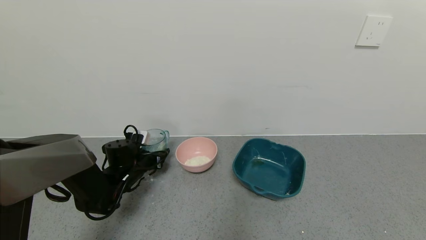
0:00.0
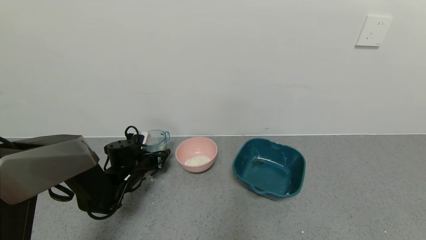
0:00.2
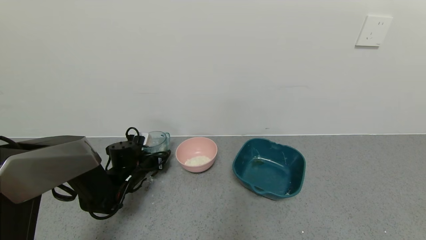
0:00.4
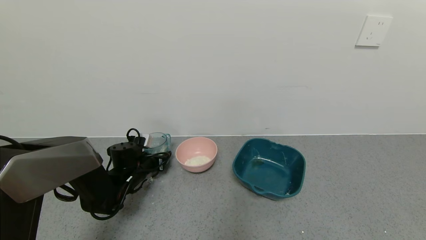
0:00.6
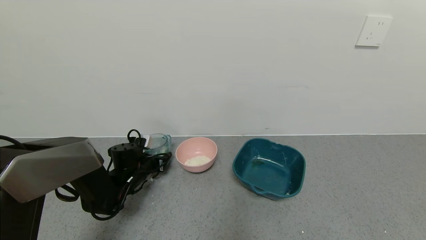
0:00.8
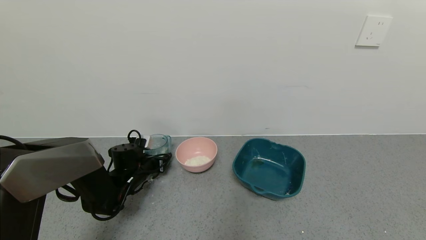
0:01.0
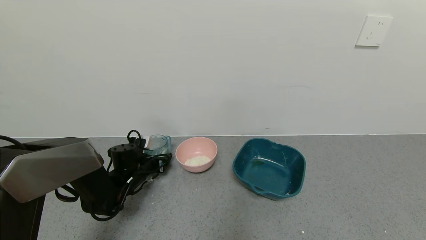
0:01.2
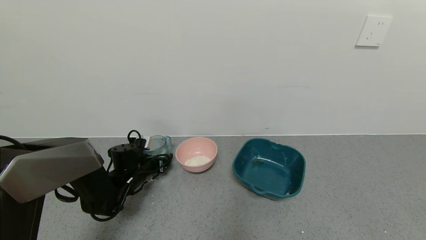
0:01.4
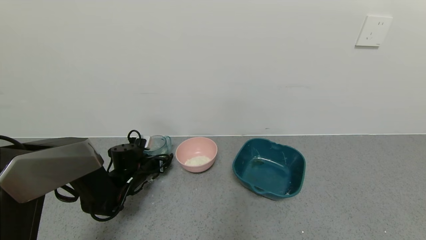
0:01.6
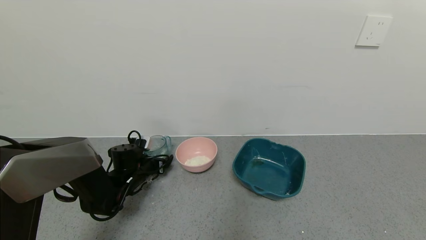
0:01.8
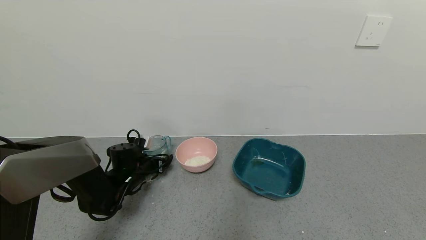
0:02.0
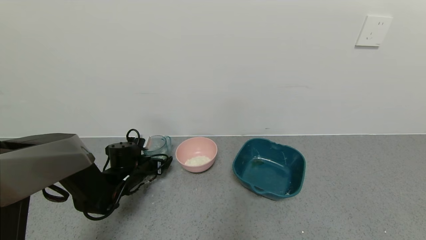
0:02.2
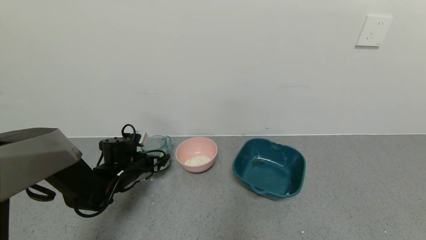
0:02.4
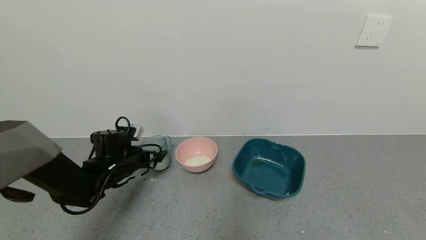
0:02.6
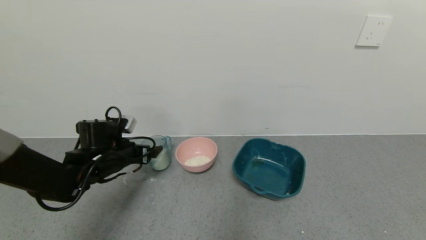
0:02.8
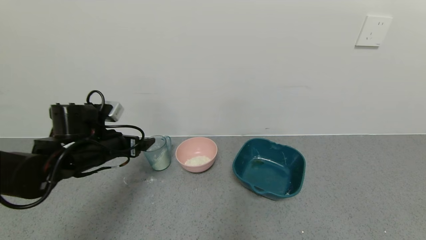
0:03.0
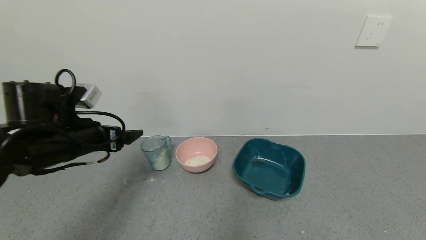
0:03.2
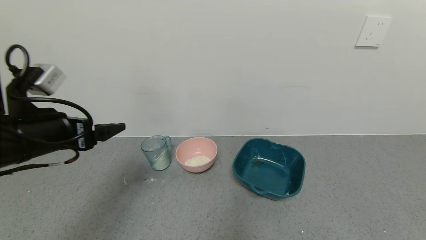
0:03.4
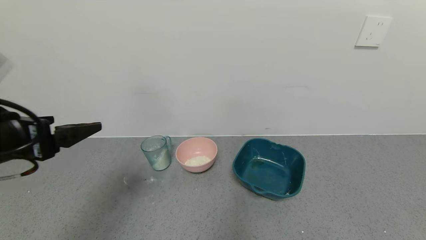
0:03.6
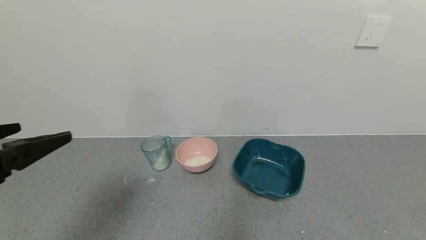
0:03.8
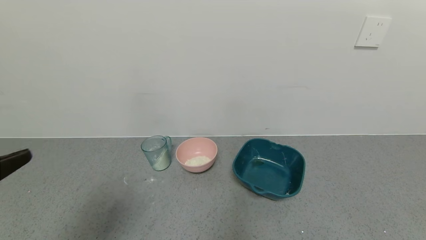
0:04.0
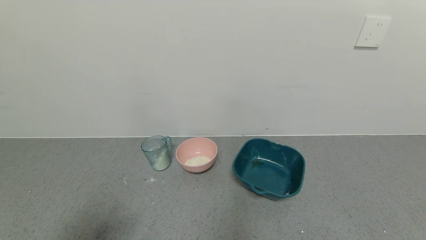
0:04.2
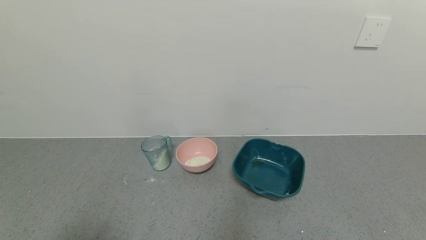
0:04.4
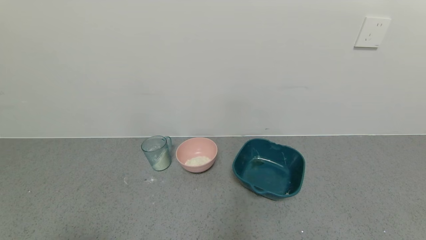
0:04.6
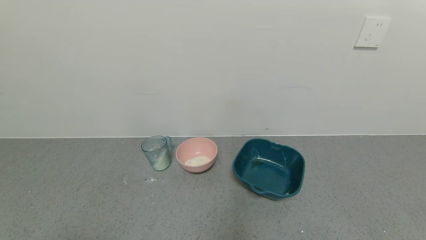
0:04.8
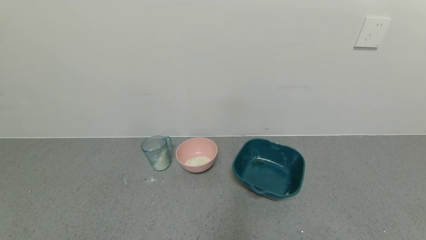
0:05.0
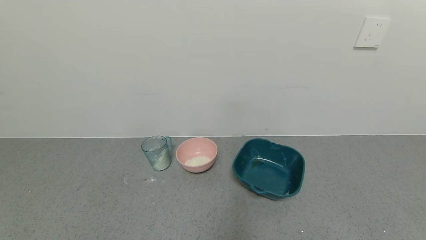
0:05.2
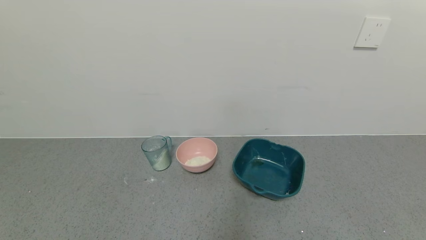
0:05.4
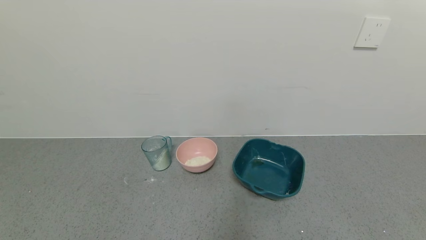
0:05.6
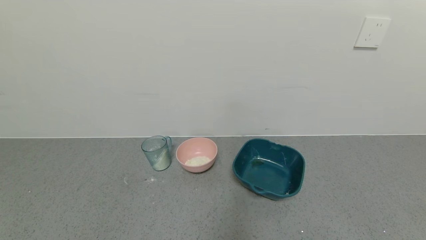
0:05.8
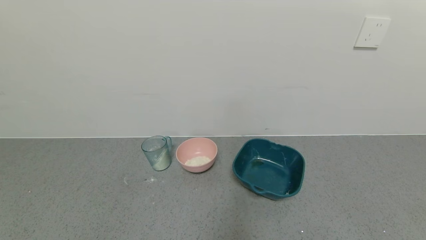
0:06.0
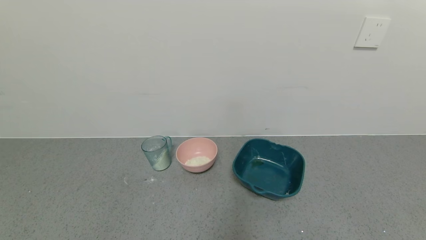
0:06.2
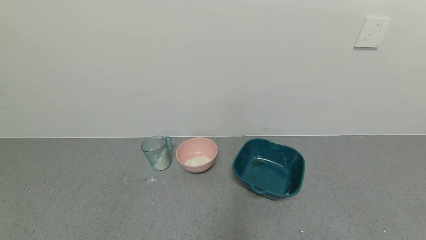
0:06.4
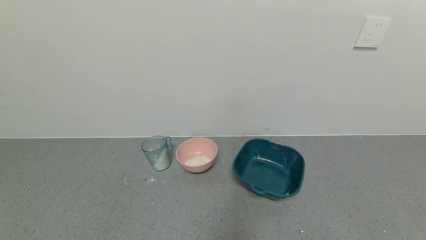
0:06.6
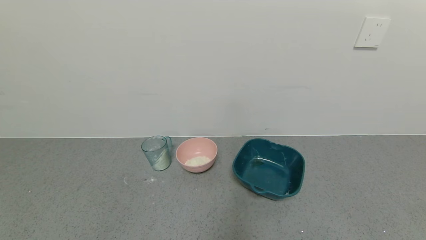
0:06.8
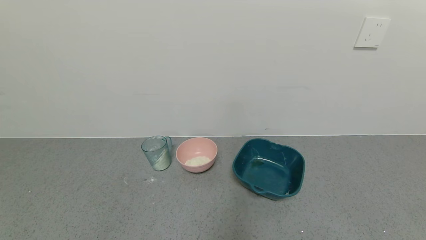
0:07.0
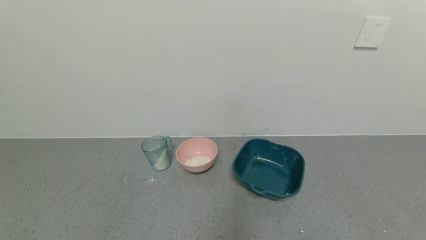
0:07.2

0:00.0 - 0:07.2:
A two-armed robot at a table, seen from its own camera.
Task of the whole recording: use a gripper to pick up the cup and pour the powder into a bowl or tray.
Step, 0:00.0 - 0:02.6: Place the glass cup down with the left gripper.
0:00.0 - 0:01.4: The left gripper opens its fingers.
0:01.4 - 0:02.8: The left gripper shifts some 10 cm upward and backward, and opens.
0:02.8 - 0:04.4: The left gripper moves backward and upward, approximately 40 cm.

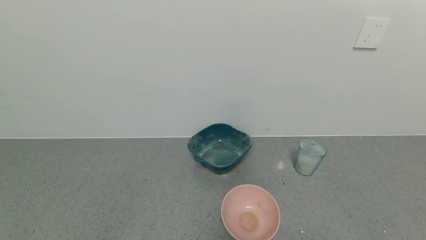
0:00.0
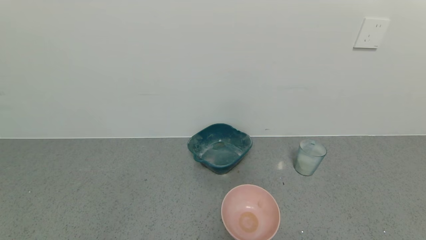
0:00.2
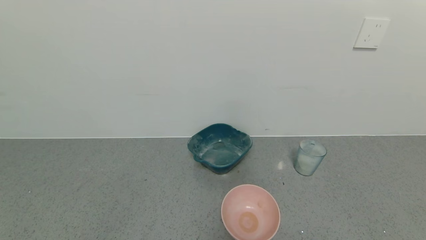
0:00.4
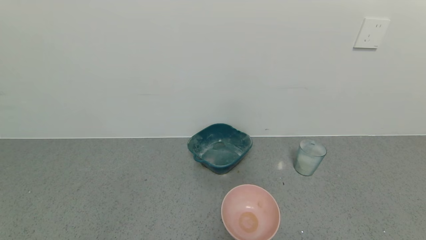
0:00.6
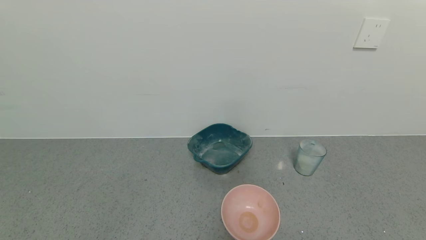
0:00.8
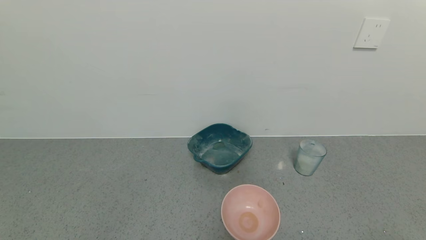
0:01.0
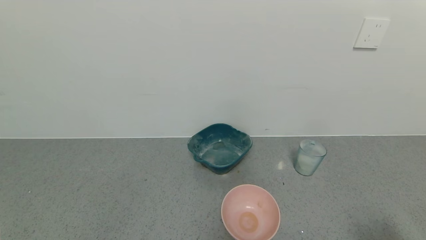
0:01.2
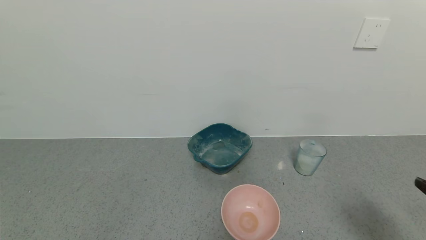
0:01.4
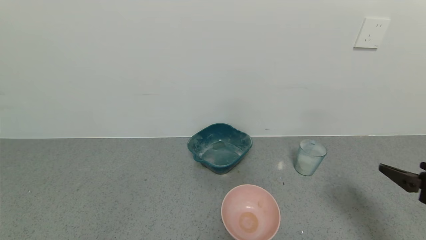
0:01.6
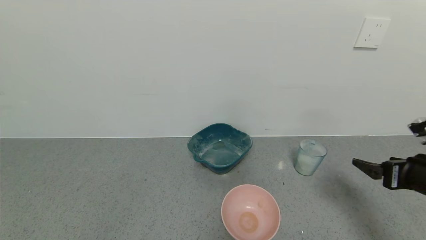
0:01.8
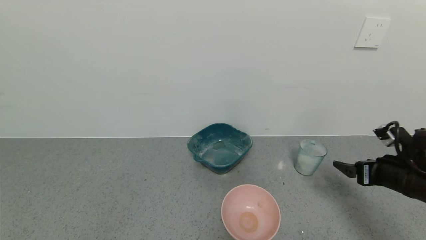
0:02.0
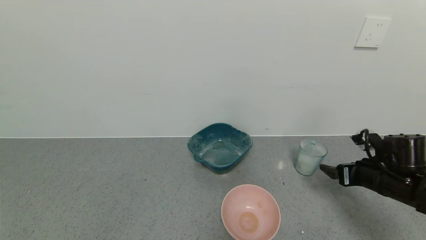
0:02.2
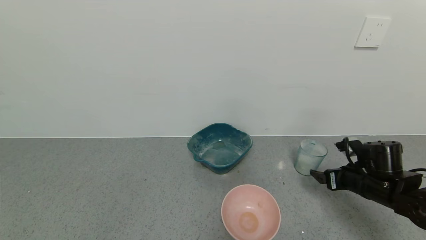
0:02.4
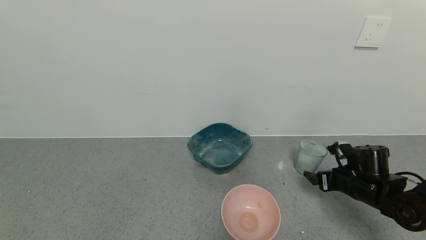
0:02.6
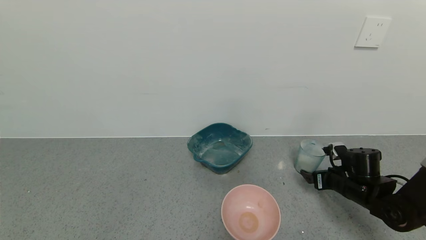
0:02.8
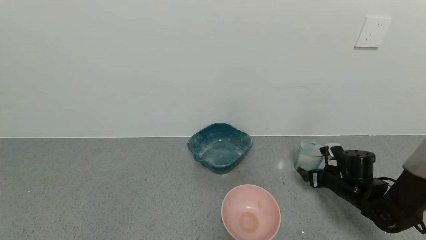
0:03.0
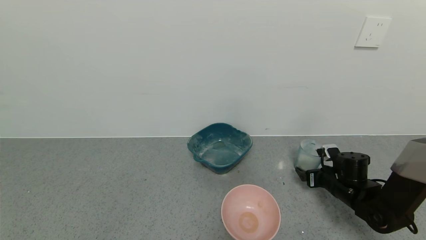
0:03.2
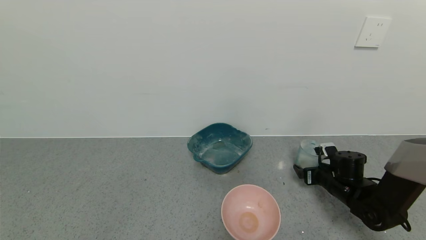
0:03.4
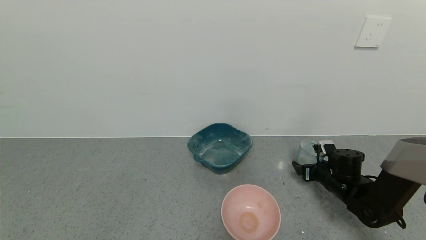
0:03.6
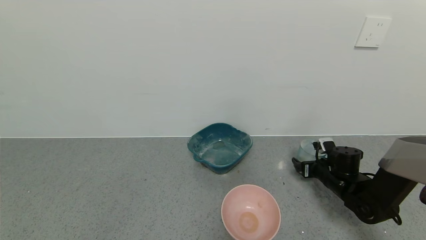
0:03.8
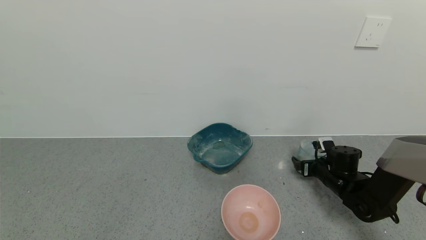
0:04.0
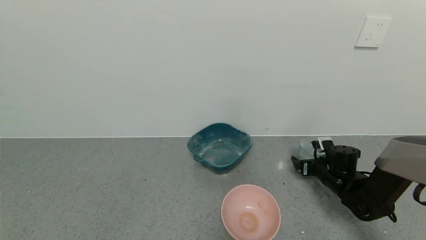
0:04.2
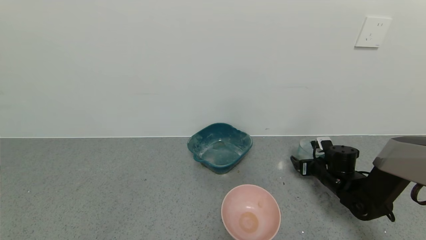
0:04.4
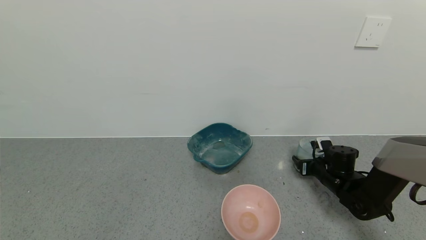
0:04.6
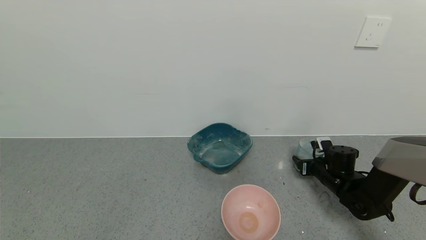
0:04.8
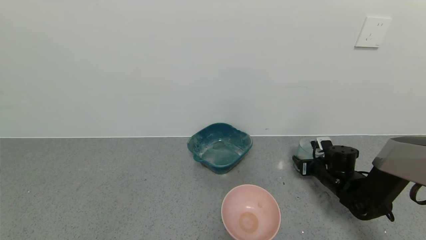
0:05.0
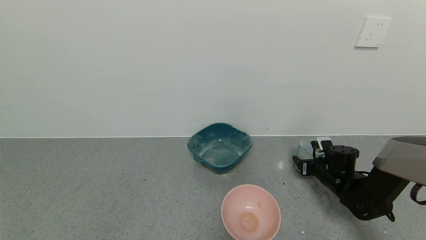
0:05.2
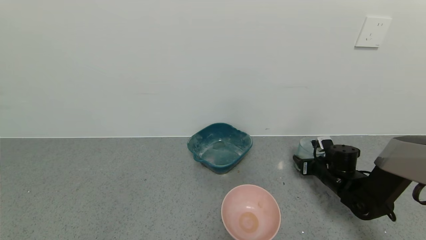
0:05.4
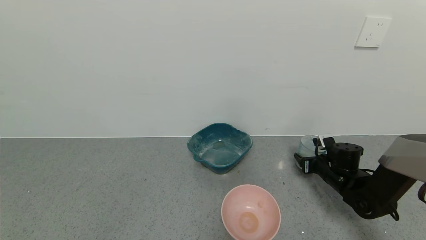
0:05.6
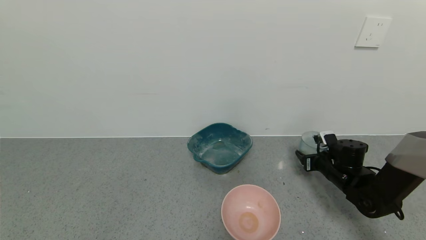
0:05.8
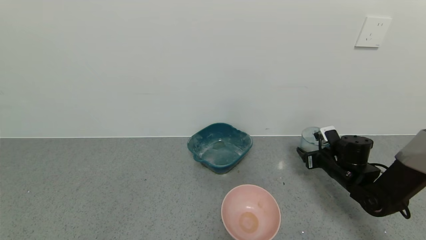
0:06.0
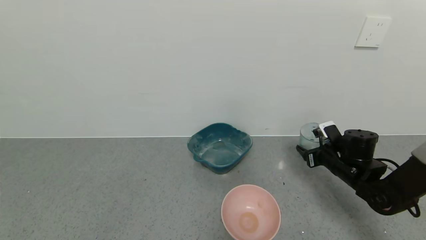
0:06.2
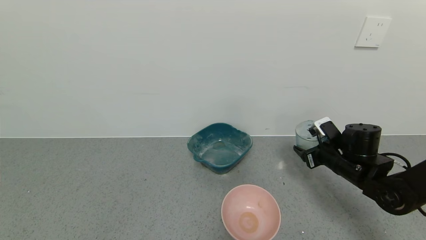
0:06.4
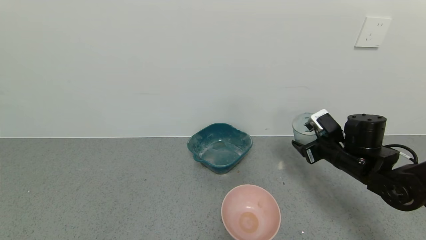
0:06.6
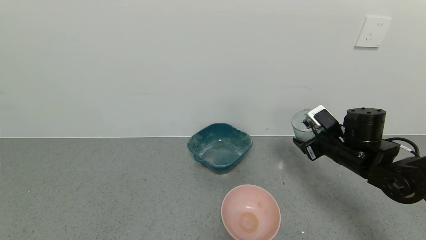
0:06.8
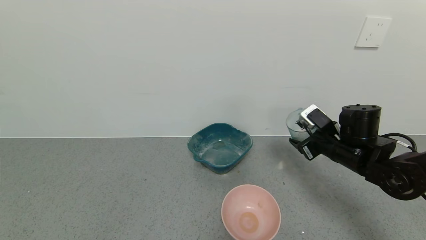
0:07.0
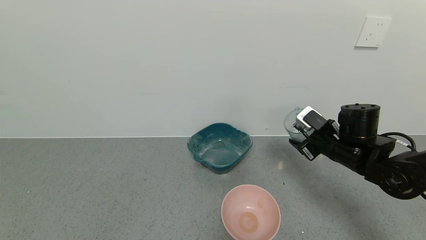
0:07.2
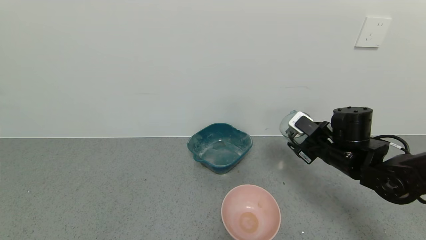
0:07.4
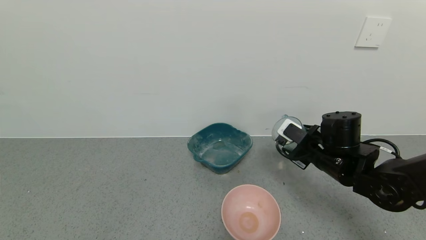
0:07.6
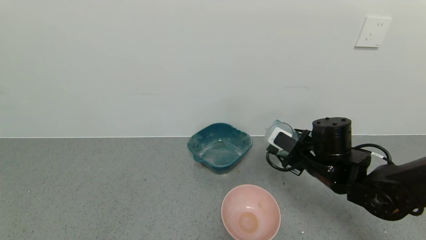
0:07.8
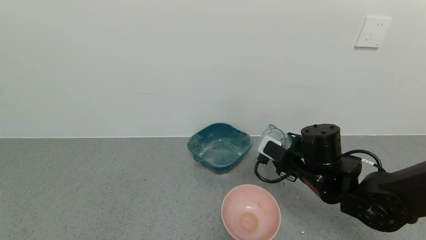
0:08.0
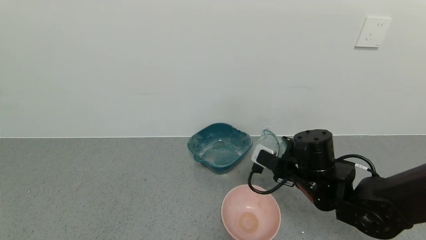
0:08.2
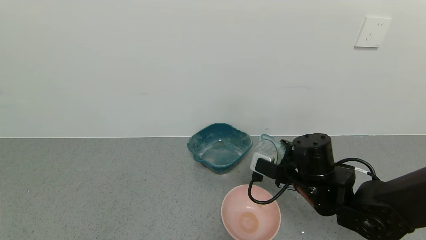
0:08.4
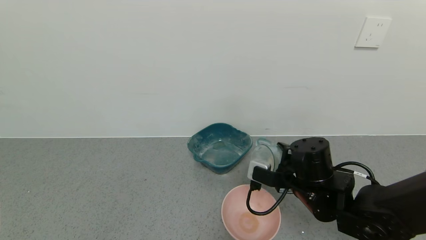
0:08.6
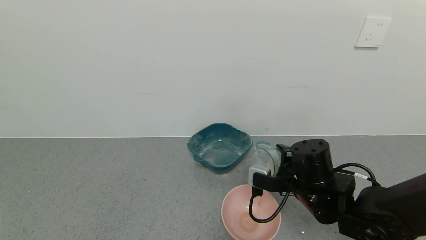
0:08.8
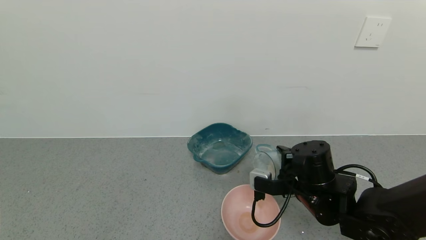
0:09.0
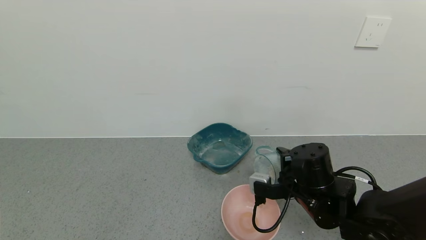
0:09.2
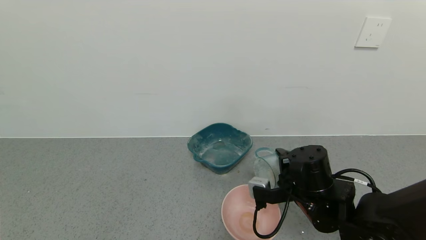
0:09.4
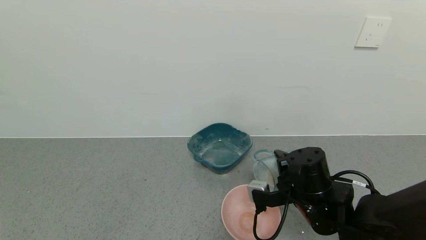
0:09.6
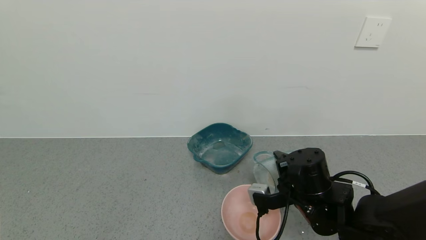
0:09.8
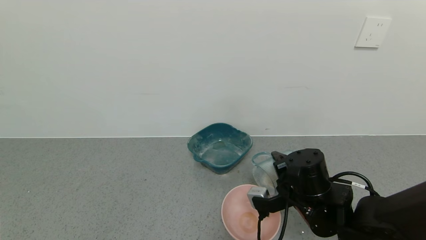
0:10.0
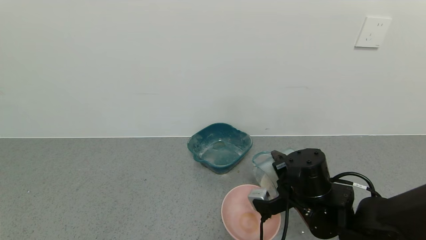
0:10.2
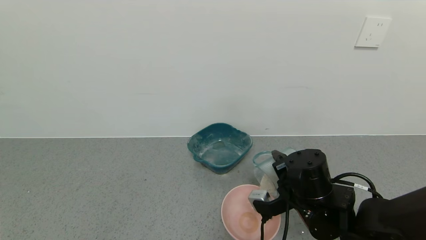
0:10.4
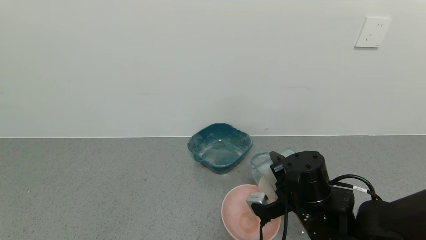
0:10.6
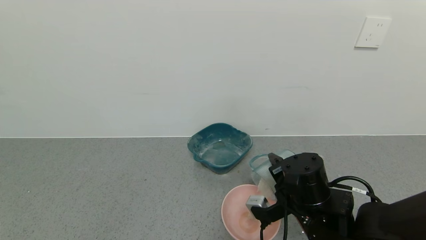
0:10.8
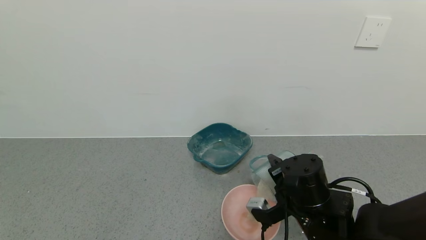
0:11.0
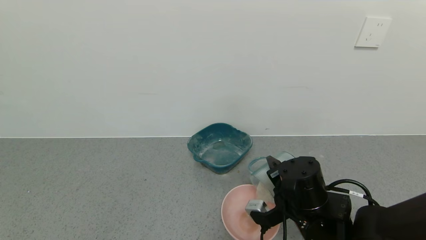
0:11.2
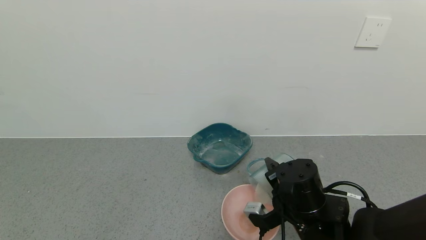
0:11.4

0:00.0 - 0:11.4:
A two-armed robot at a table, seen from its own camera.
Task of the whole recording: use a gripper to pick up the cup and pour the powder into a bowl or tray.
Step, 0:00.0 - 0:05.2: Grasp the glass of powder with the right gripper.
0:00.0 - 0:01.4: The right gripper heads upward and forward, covering about 20 cm.
0:01.4 - 0:02.8: The right gripper moves forward and downward, about 25 cm.
0:02.8 - 0:04.2: The right gripper moves forward, roughly 5 cm.
0:04.2 - 0:05.6: The right gripper closes up.
0:05.6 - 0:07.2: The right gripper heads upward and to the left, covering some 15 cm.
0:07.2 - 0:08.6: The right gripper travels to the left and backward by approximately 10 cm.
0:10.0 - 0:11.4: The grippers stay close to where they were, moving slightly.
